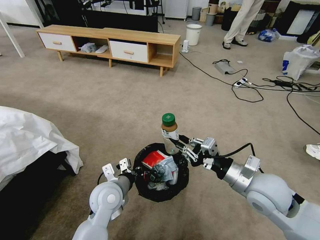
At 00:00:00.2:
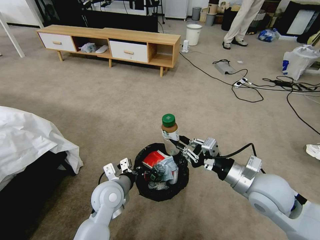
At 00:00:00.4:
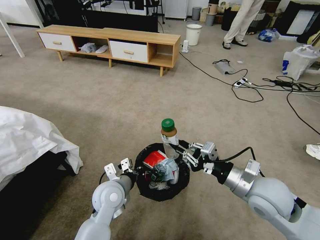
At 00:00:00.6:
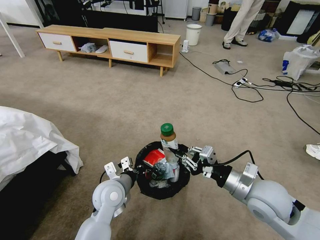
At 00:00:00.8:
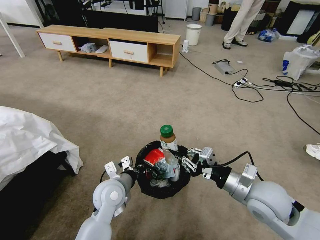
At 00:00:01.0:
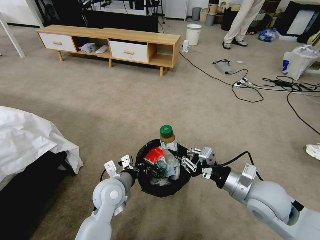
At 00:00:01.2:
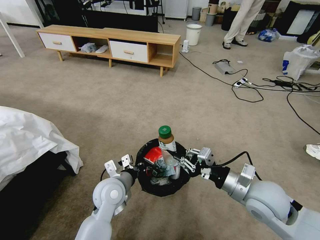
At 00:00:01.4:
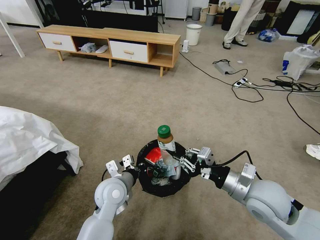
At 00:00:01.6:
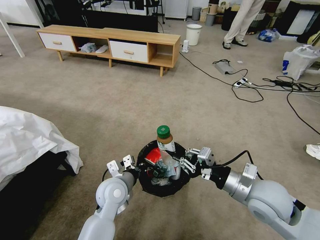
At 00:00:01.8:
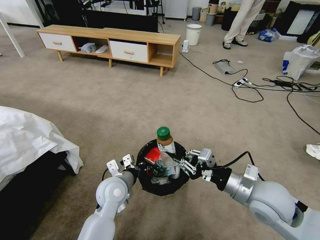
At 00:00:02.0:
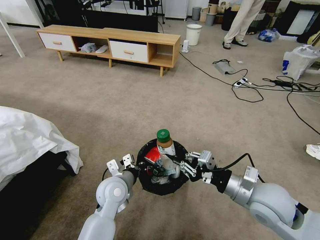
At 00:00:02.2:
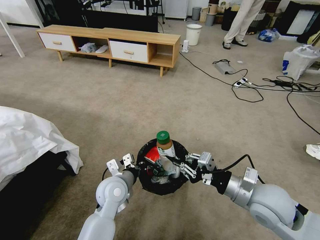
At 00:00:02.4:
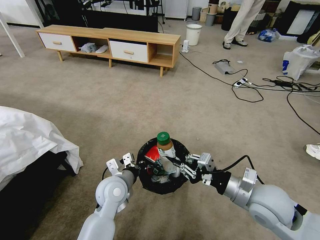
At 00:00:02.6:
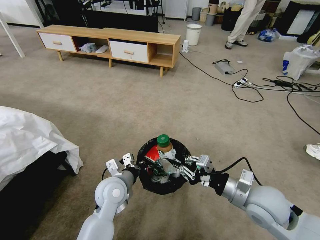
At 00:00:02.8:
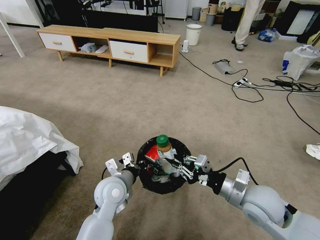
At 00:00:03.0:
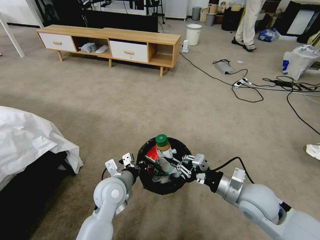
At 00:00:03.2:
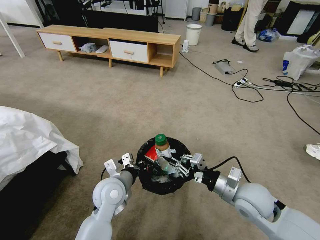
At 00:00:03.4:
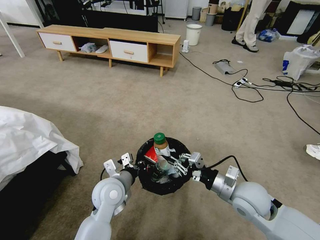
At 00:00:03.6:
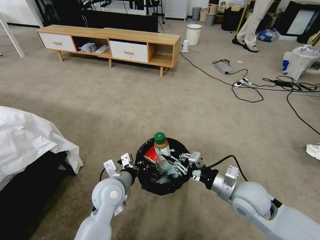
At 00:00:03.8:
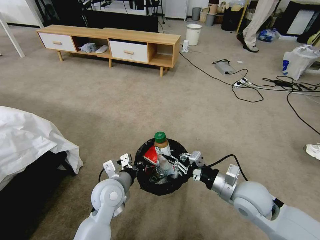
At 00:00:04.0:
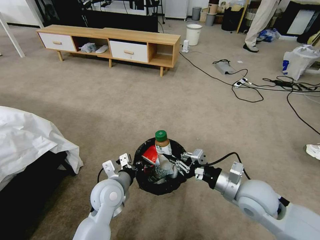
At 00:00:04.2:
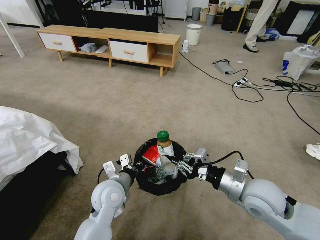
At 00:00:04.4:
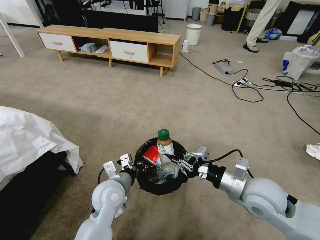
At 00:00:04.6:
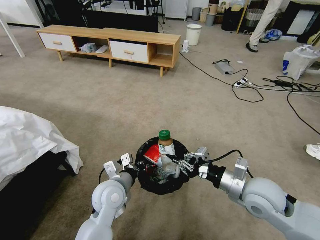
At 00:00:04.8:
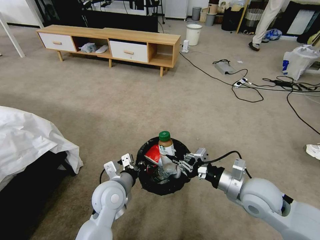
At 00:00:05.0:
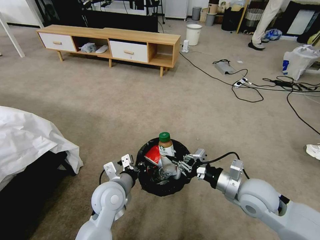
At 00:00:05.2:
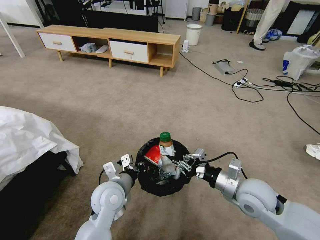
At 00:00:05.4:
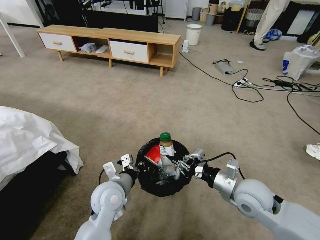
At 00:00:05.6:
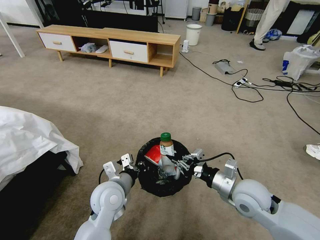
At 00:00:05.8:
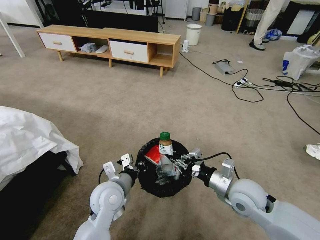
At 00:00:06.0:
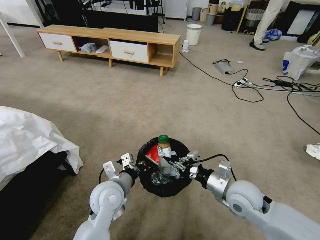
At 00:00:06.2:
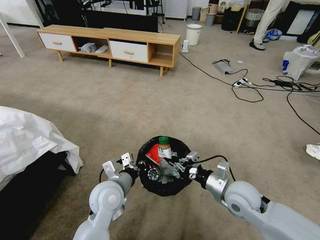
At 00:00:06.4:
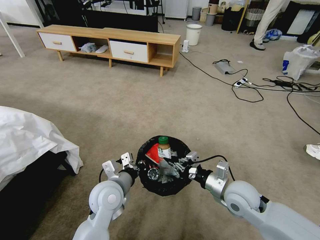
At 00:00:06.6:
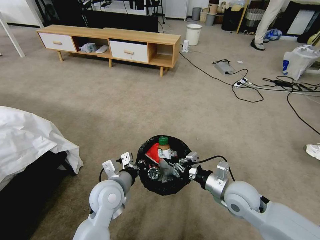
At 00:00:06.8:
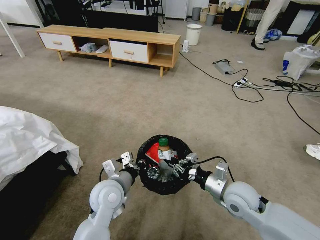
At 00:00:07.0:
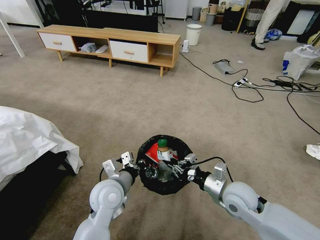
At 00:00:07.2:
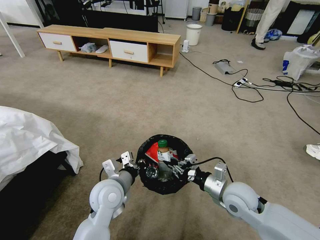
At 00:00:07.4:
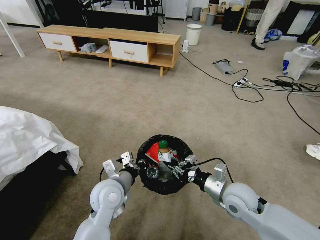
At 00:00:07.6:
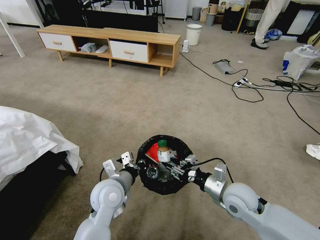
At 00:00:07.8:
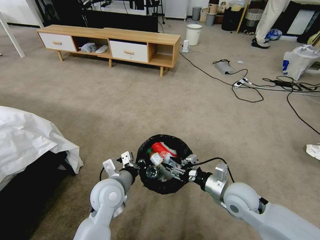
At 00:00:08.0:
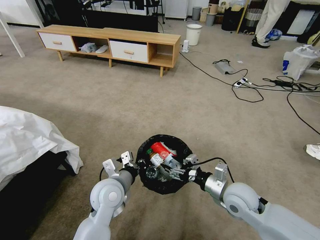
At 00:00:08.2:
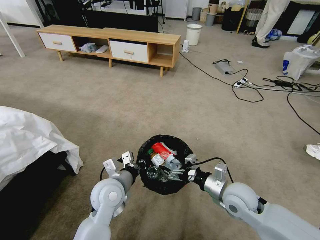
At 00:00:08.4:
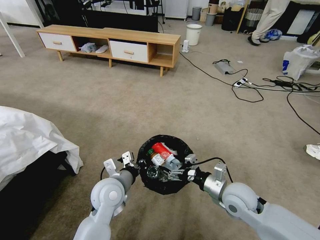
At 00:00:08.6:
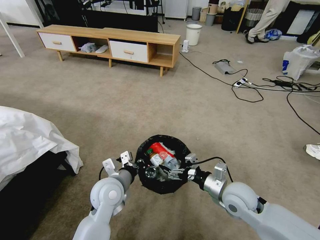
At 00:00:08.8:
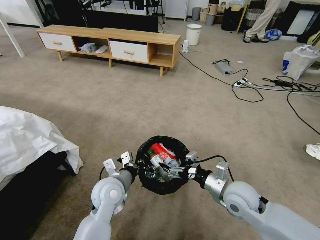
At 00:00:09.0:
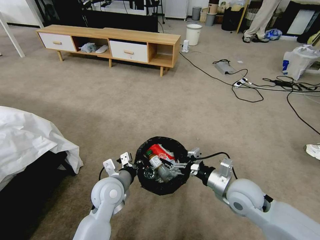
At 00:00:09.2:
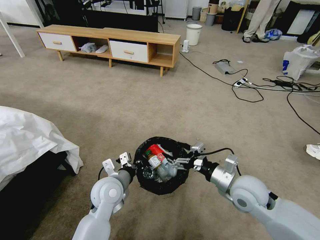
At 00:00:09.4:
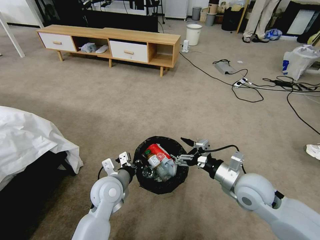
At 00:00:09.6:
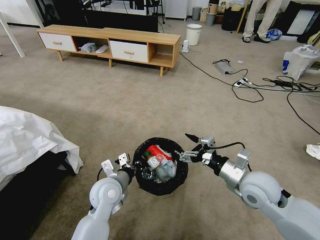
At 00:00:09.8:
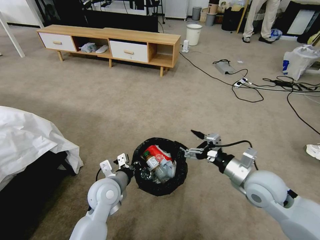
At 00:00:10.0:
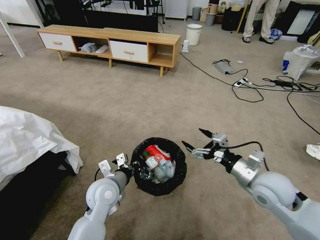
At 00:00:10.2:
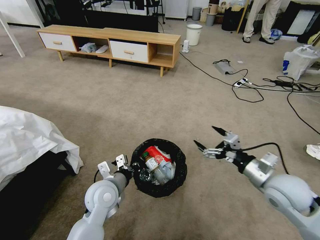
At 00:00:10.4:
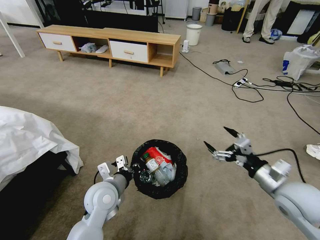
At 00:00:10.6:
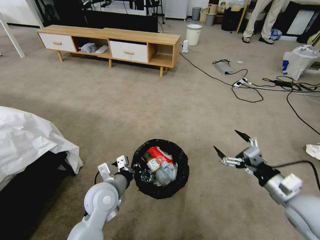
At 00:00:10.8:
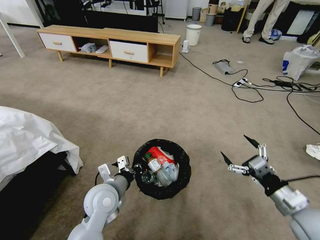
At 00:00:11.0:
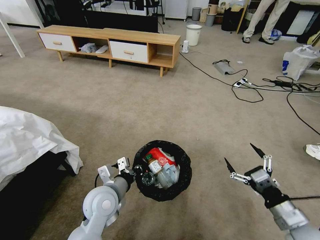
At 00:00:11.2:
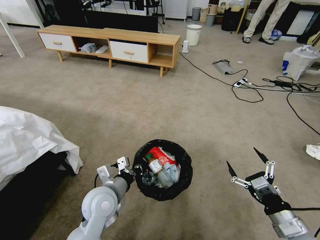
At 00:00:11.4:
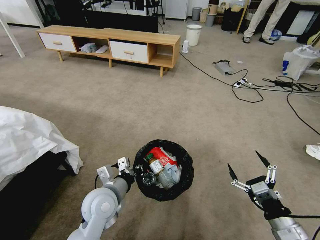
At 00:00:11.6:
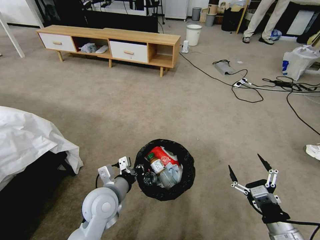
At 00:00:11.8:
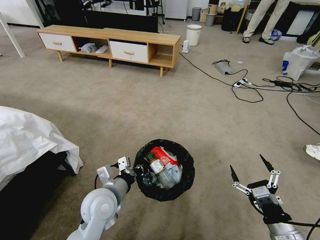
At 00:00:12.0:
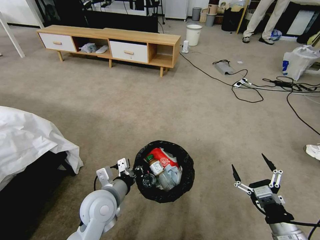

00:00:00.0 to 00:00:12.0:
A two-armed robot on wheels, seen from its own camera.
Task of the whole recording: Pick up the trash bin and place the garbage on the floor into it.
00:00:00.0 to 00:00:04.4: The grippers stay close to where they were, moving slightly.
00:00:04.4 to 00:00:06.0: The right gripper moves downward, some 5 cm.
00:00:06.0 to 00:00:07.6: The grippers make only small movements.
00:00:07.6 to 00:00:09.0: The right gripper opens up.
00:00:09.0 to 00:00:10.4: The right gripper travels to the right by approximately 10 cm.
00:00:10.4 to 00:00:12.0: The right gripper shifts about 15 cm backward and downward.

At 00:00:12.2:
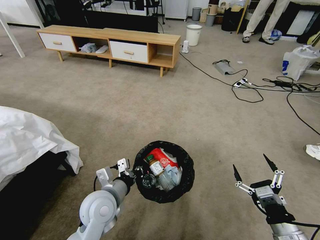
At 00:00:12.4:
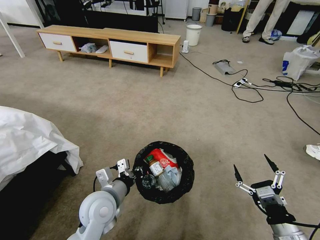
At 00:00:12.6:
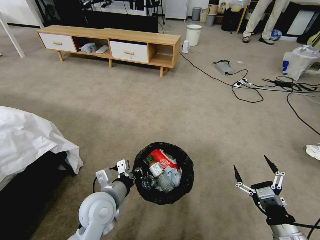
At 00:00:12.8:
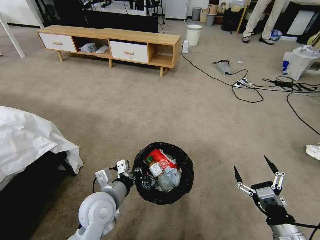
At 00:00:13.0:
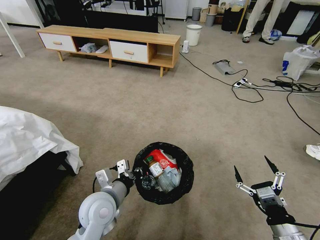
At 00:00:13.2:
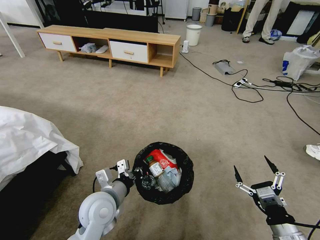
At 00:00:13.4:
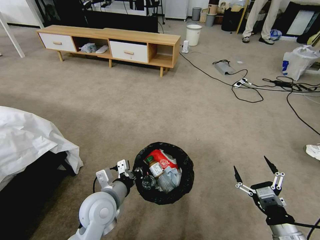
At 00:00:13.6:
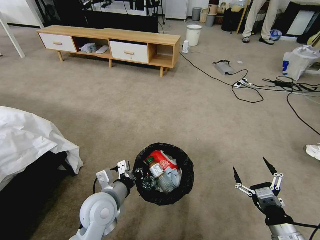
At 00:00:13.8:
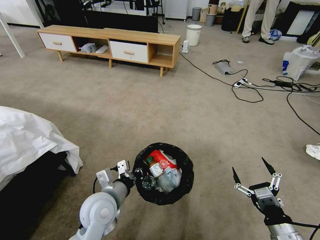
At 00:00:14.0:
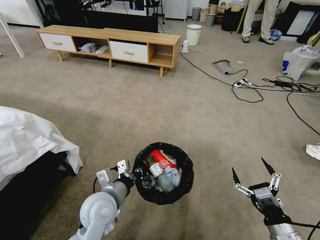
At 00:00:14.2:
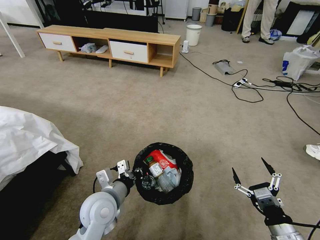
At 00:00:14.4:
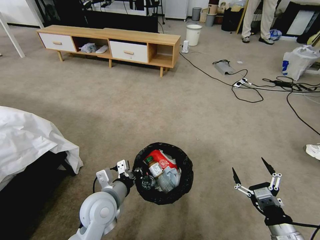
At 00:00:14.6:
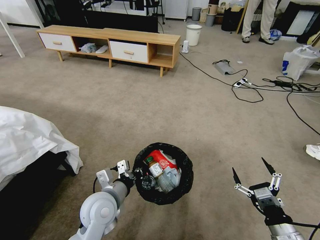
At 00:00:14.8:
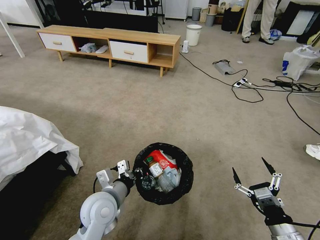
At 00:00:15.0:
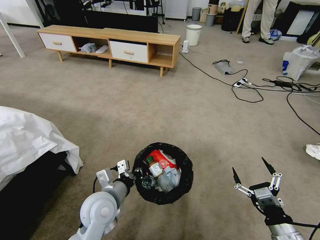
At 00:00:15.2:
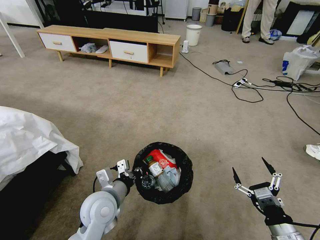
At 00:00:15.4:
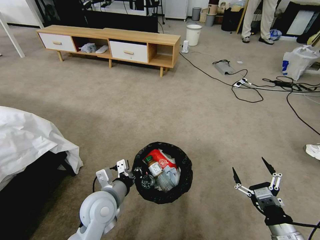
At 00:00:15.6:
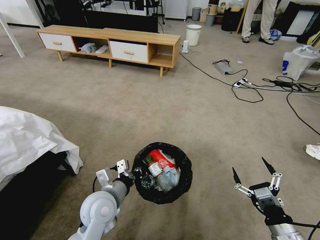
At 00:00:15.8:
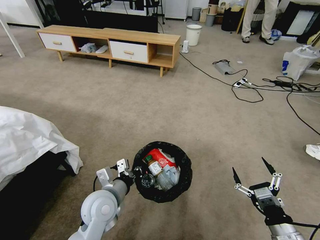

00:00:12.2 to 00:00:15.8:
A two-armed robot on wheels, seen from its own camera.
Task of the whole recording: Pick up the trash bin and place the garbage on the floor into it.
00:00:12.2 to 00:00:15.8: Both grippers stay put.
